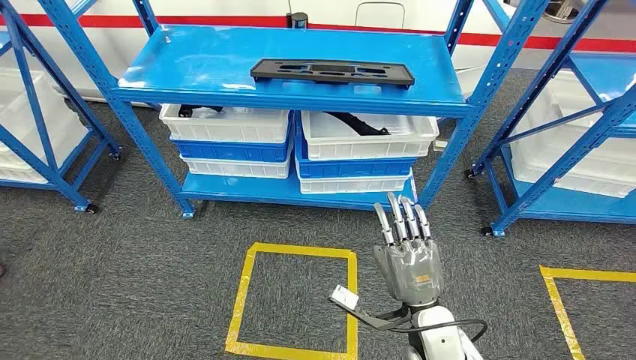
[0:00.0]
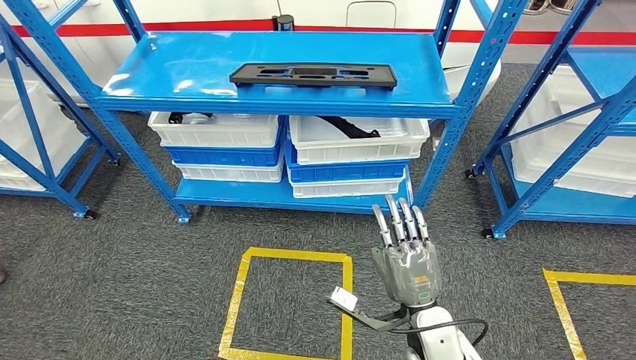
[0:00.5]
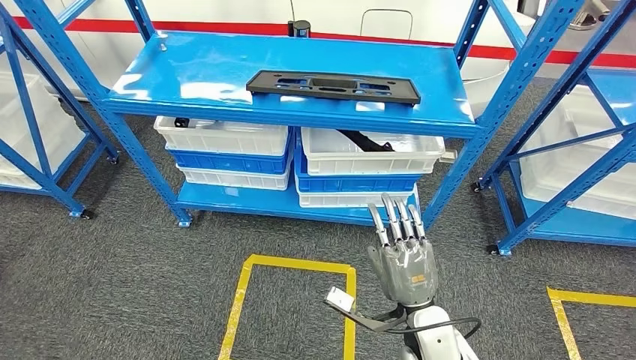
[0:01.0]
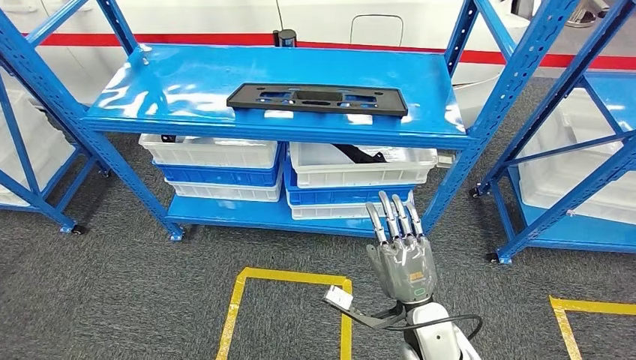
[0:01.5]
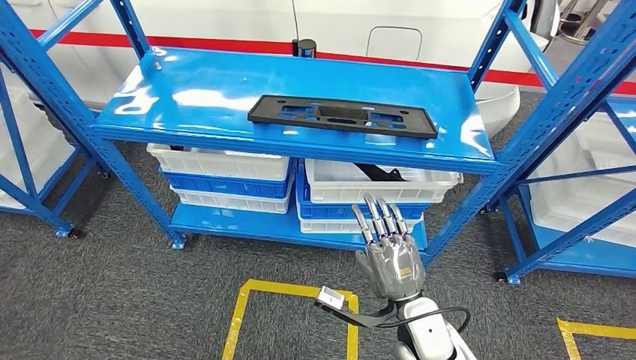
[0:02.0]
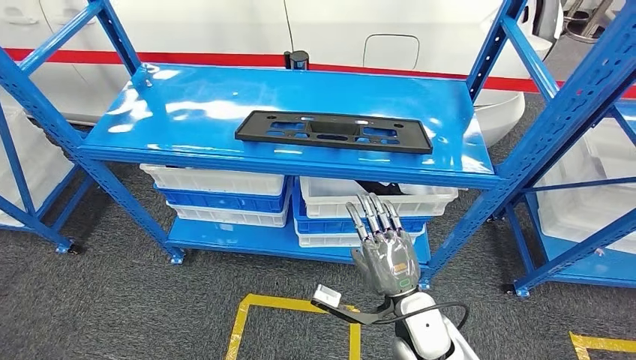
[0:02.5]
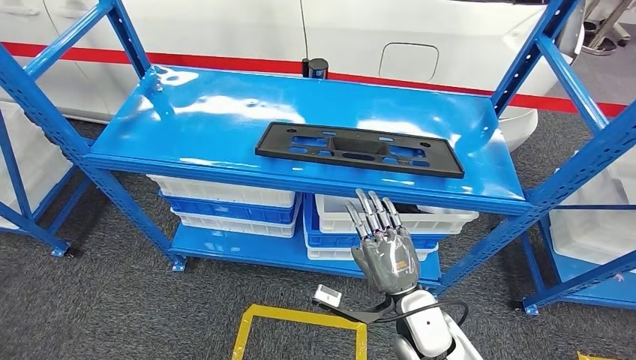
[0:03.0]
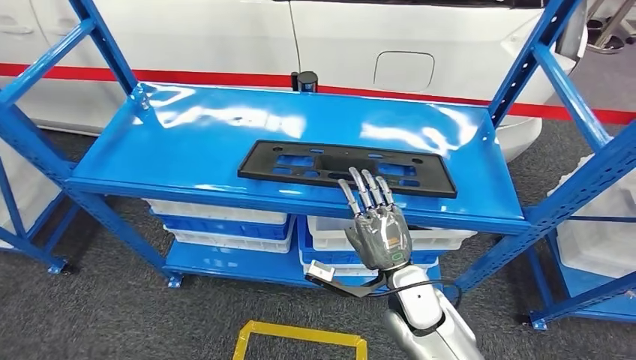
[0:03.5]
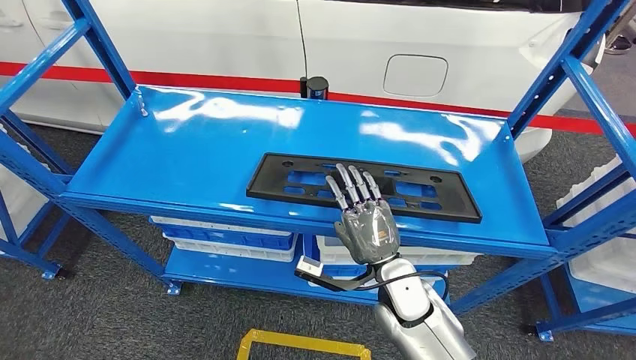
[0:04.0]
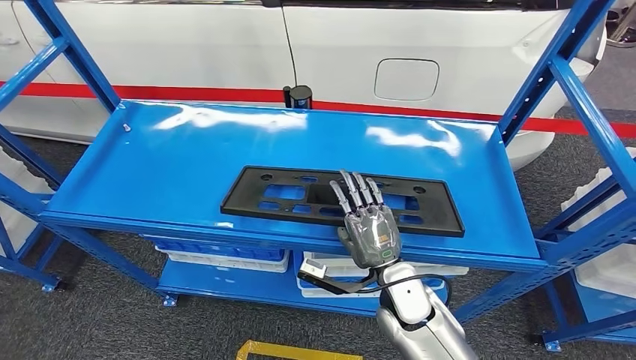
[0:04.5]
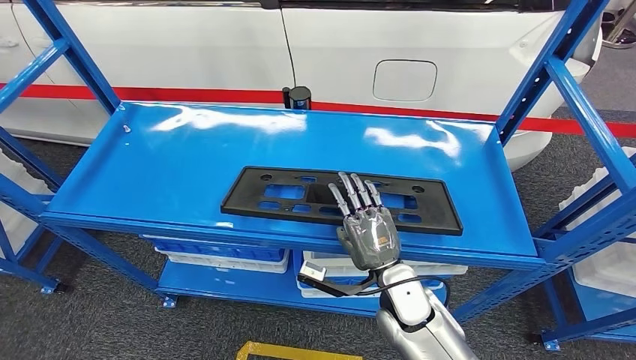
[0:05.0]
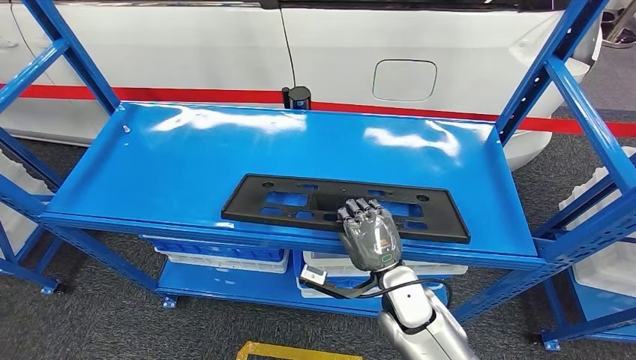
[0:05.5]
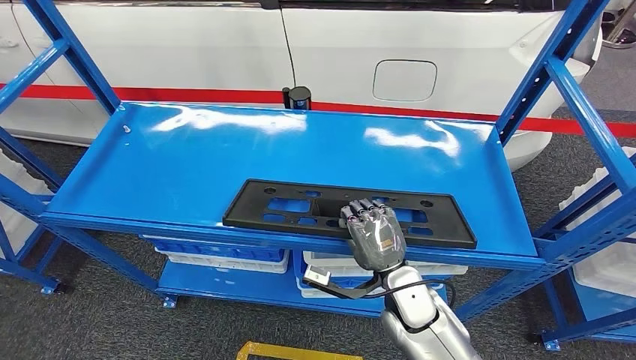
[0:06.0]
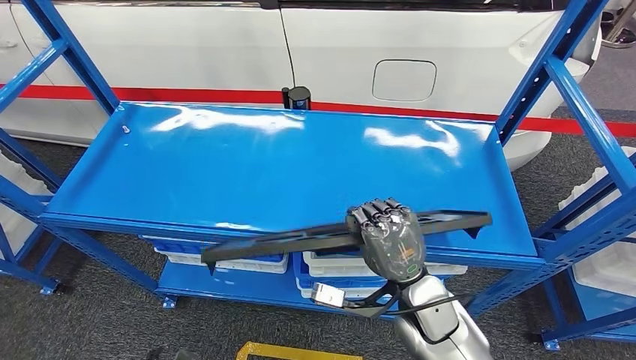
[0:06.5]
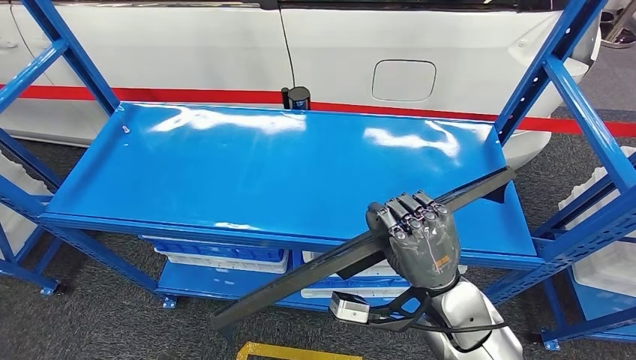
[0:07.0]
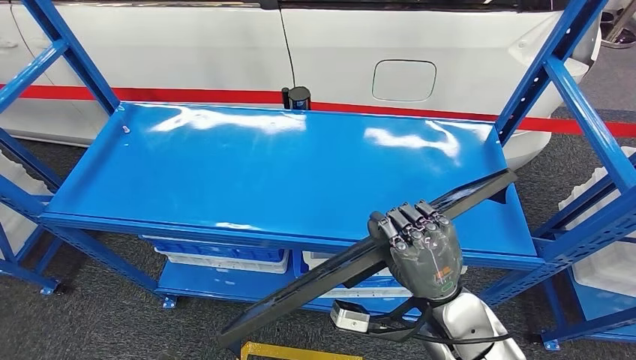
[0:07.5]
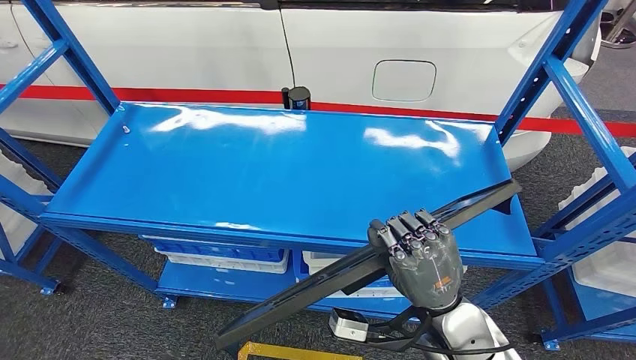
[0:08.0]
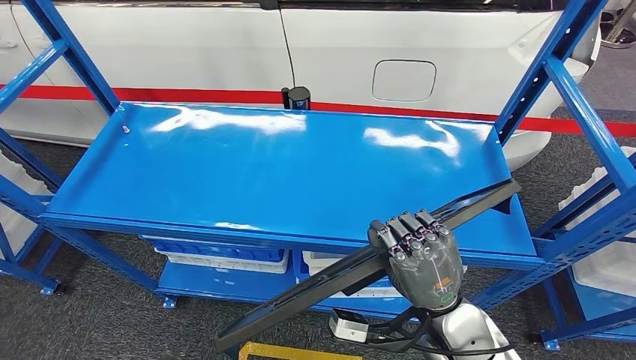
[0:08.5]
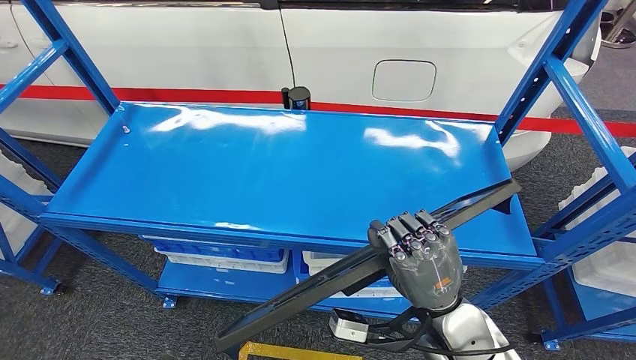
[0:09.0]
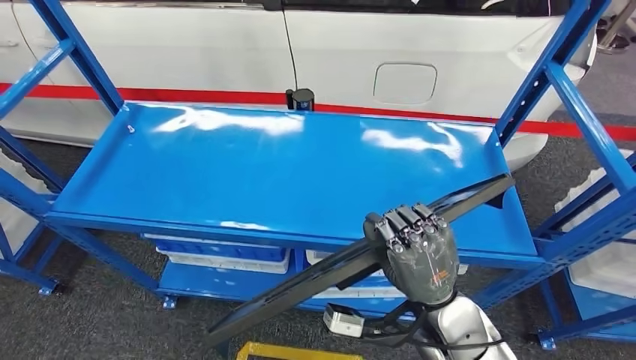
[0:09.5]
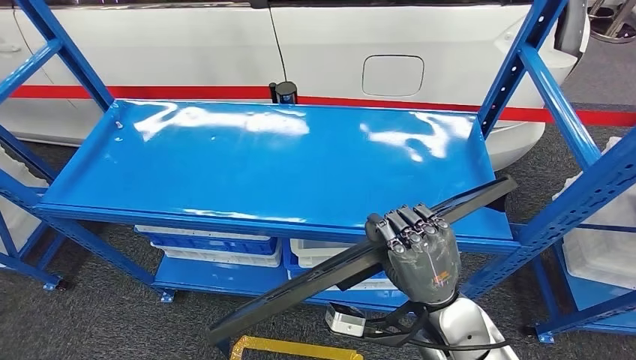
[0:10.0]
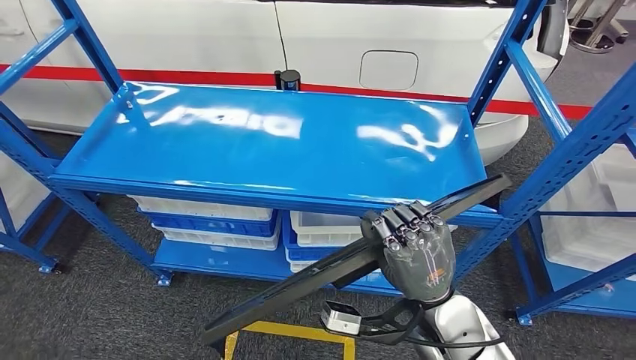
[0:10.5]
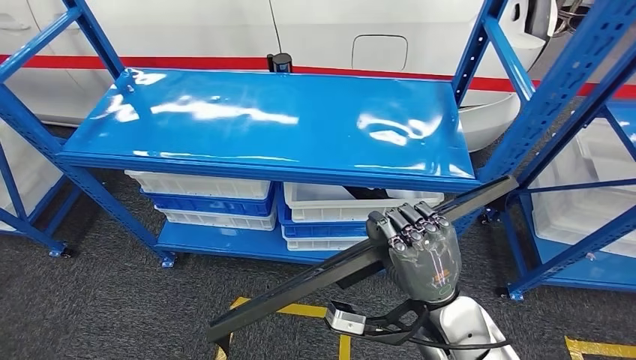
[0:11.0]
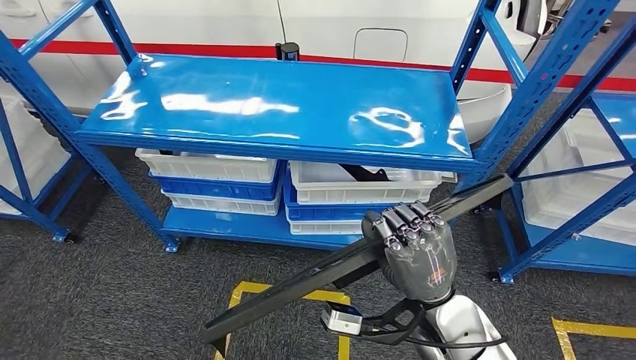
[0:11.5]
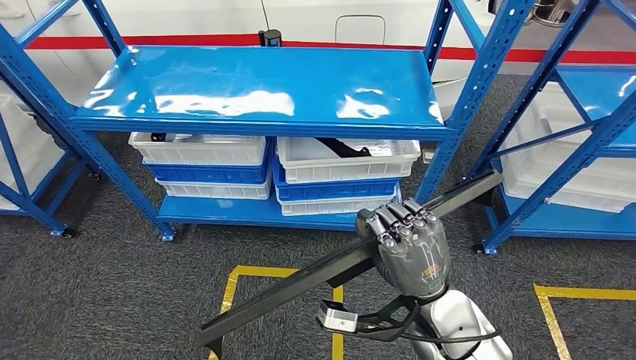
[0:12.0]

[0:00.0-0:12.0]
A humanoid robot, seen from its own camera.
Step, 0:00.0 to 0:07.5: Pick up the large material from the shelf.
0:06.0 to 0:08.0: The right hand travels upward and backward by some 10 cm.

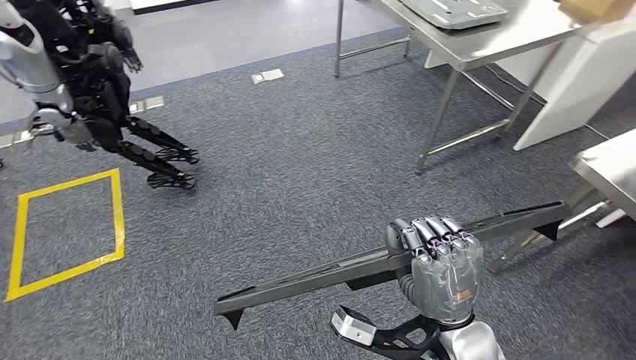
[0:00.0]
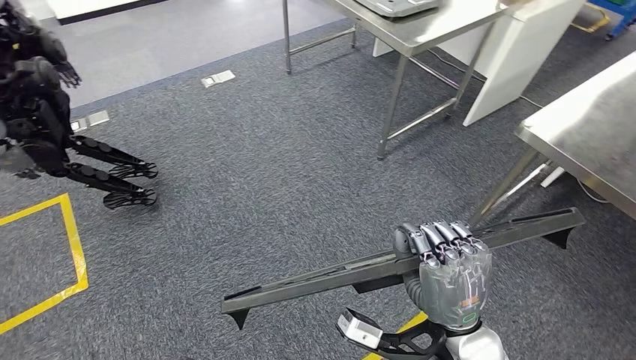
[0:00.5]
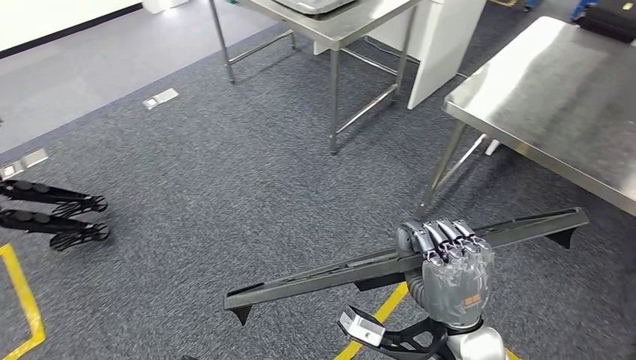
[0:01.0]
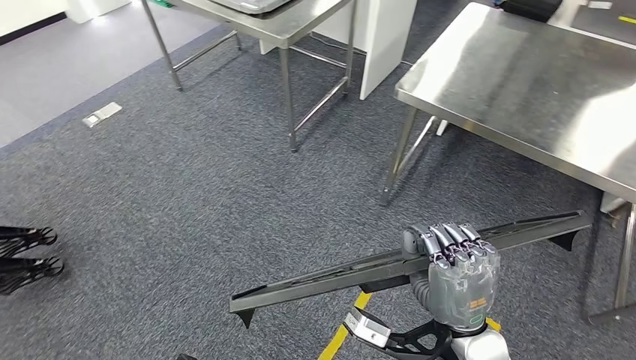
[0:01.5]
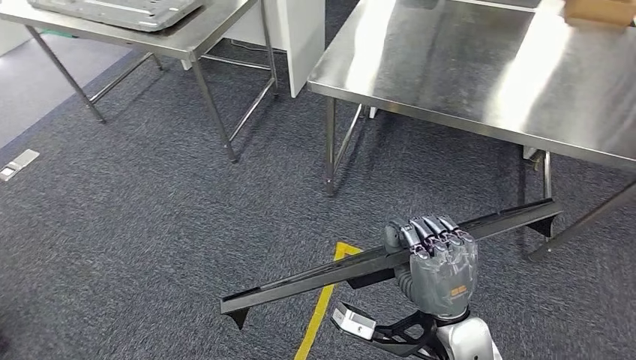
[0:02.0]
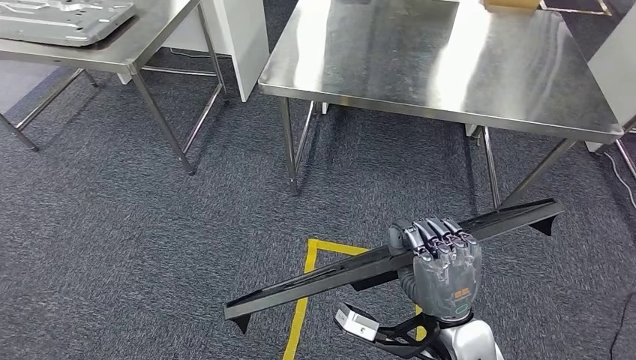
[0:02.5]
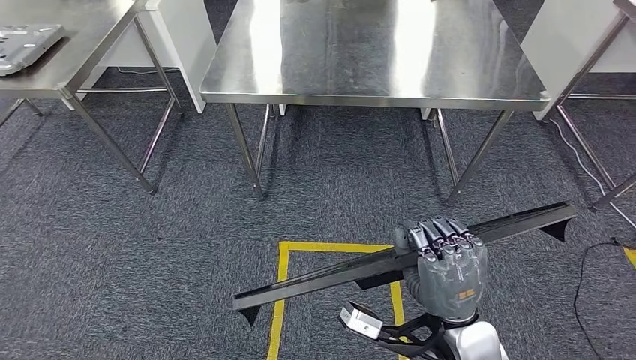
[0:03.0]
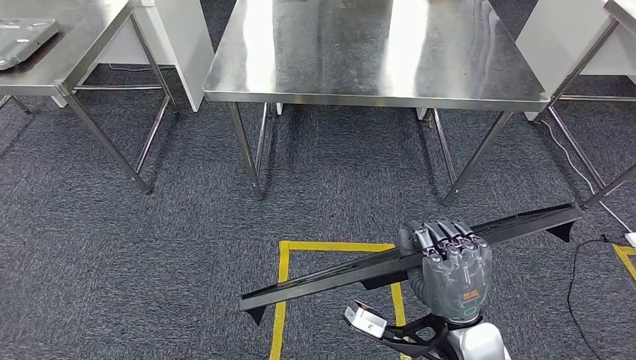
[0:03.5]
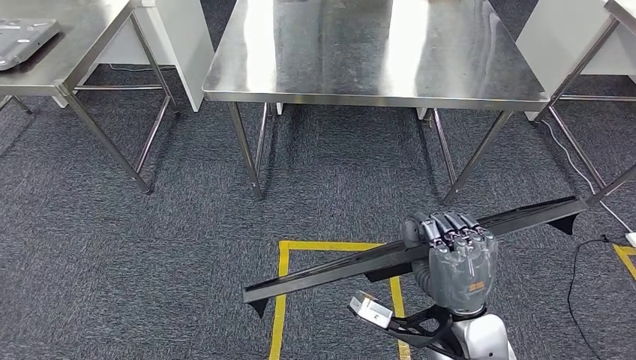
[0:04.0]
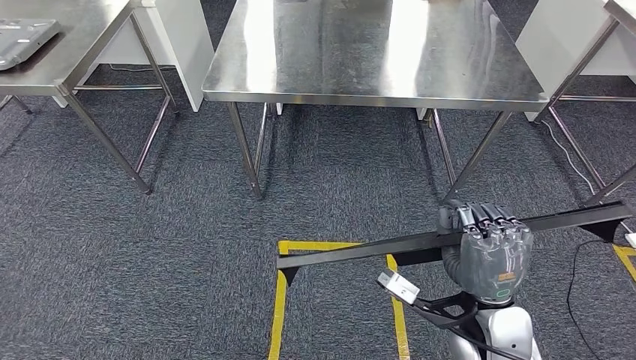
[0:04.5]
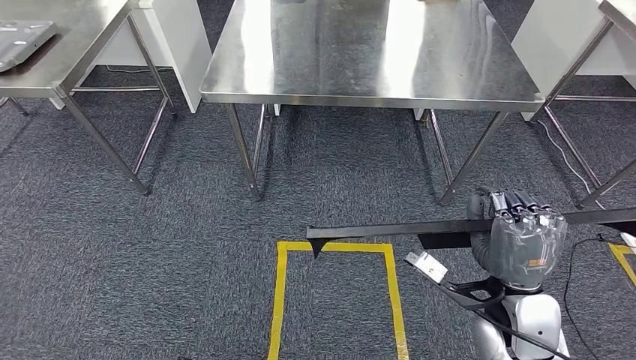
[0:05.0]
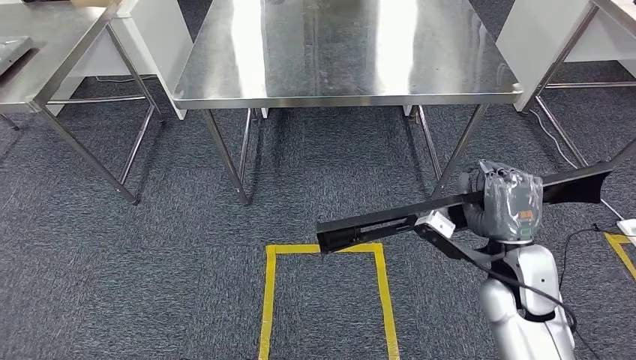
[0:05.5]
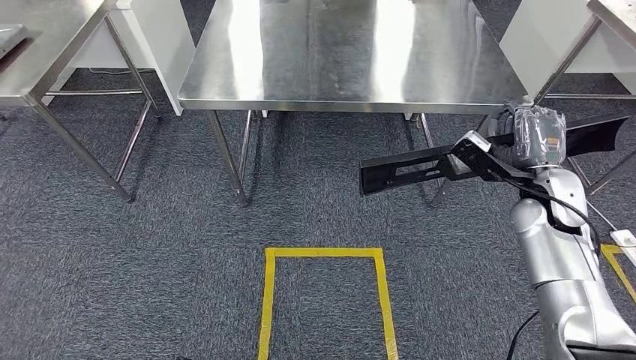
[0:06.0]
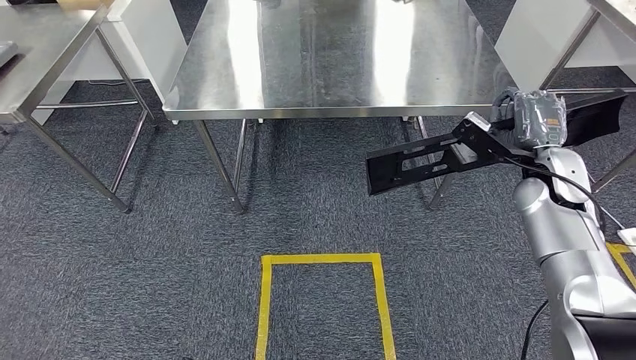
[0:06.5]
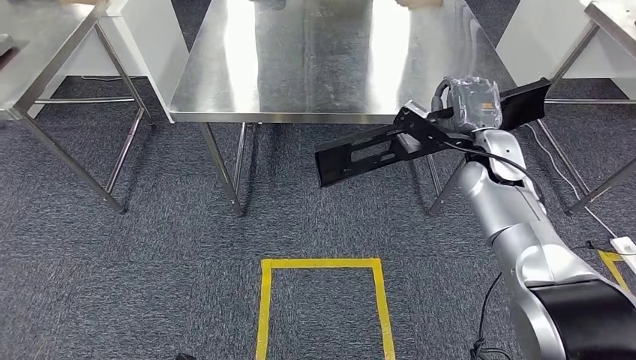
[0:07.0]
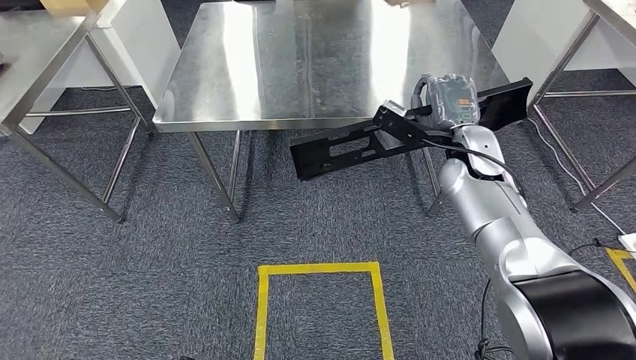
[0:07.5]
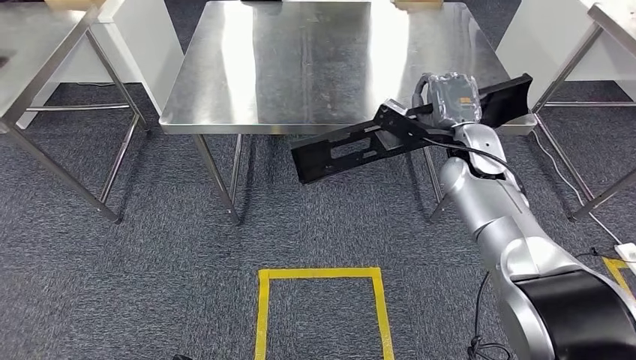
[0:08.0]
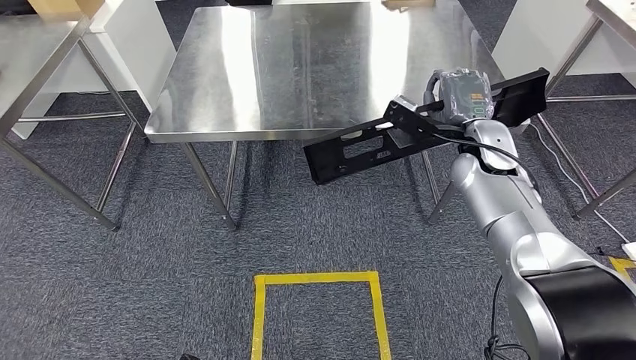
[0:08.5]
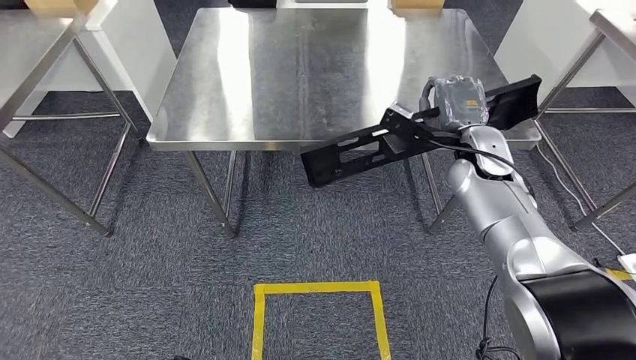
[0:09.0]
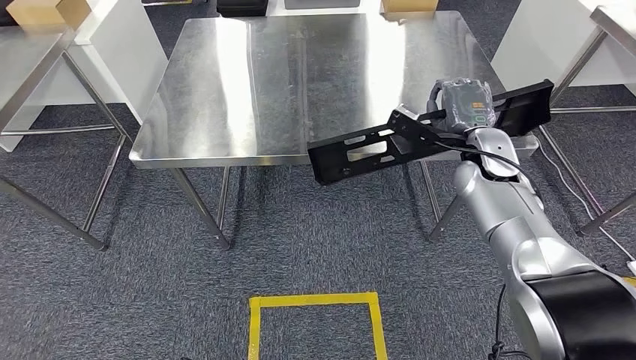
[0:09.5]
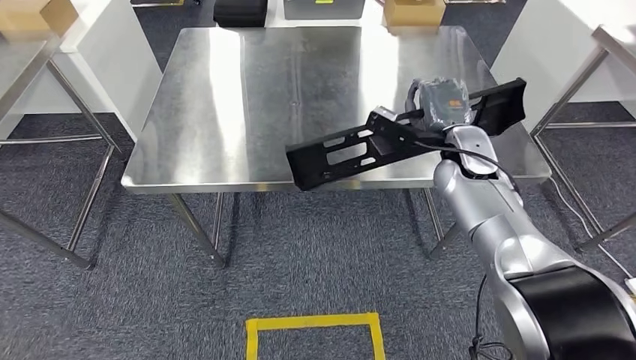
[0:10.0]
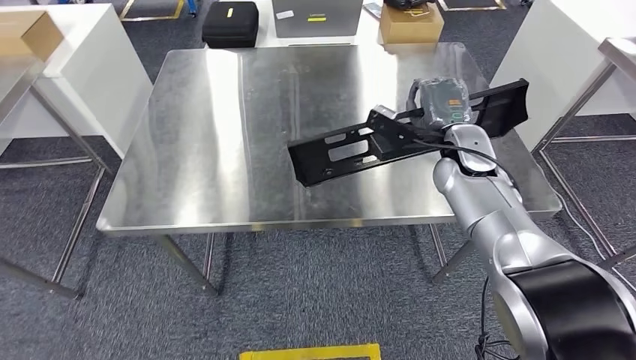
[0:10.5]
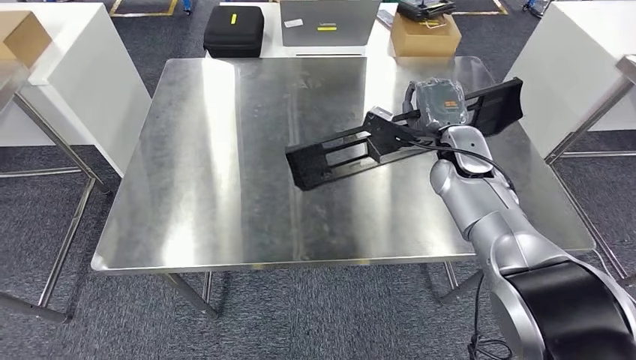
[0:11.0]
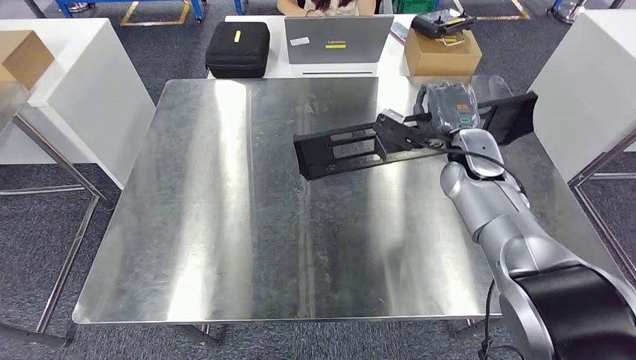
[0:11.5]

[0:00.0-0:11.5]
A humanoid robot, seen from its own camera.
Step, 0:00.0 to 0:10.0: Move the large material to the workbench.
